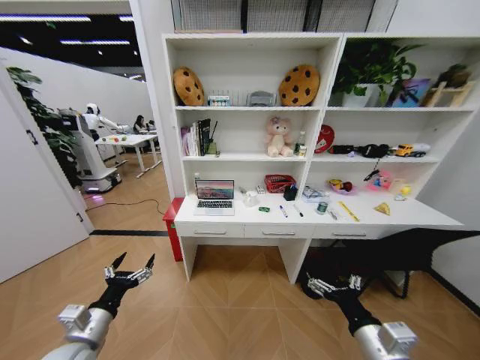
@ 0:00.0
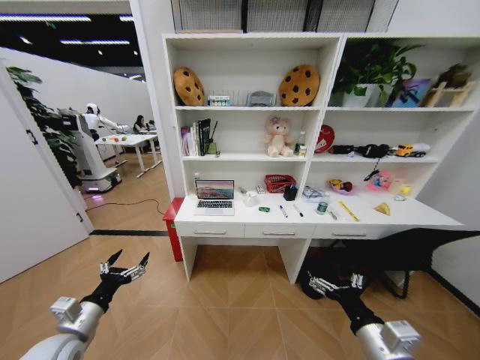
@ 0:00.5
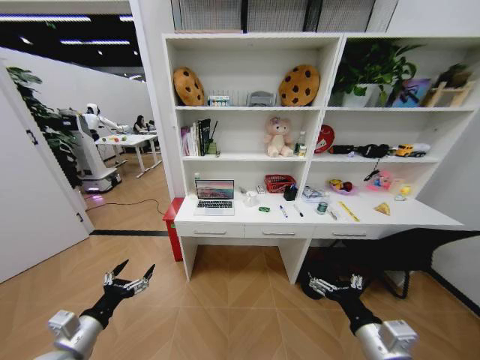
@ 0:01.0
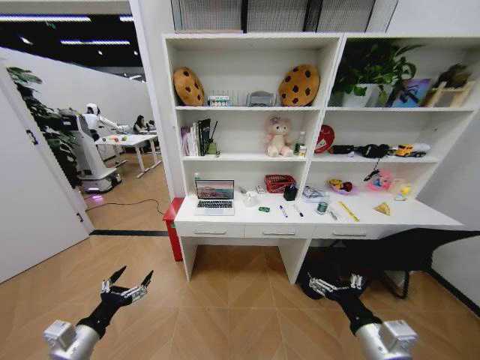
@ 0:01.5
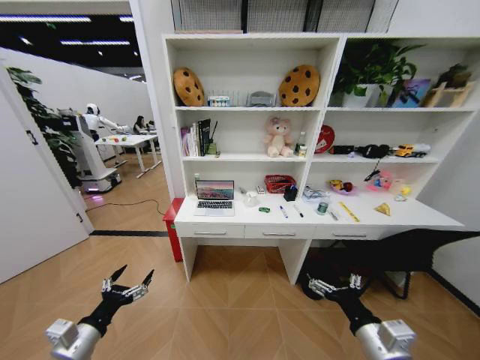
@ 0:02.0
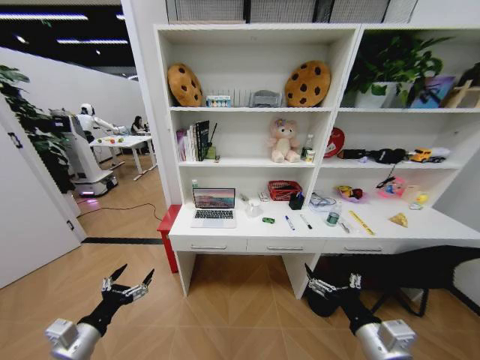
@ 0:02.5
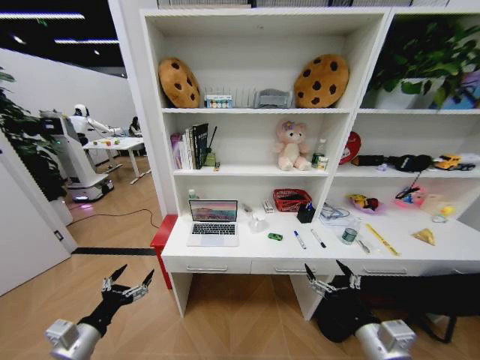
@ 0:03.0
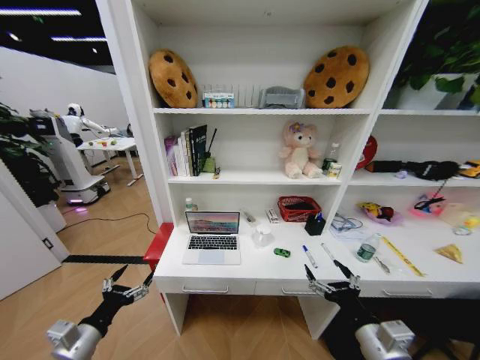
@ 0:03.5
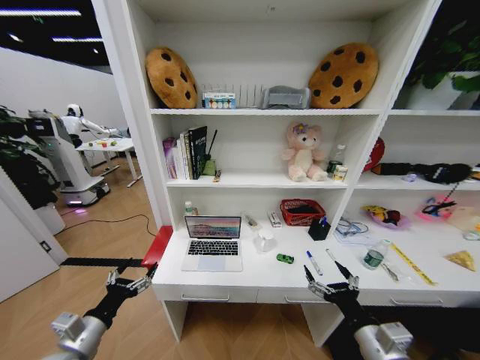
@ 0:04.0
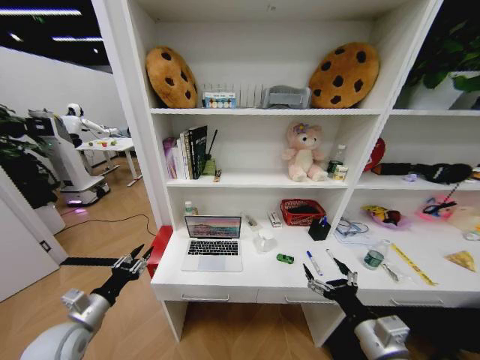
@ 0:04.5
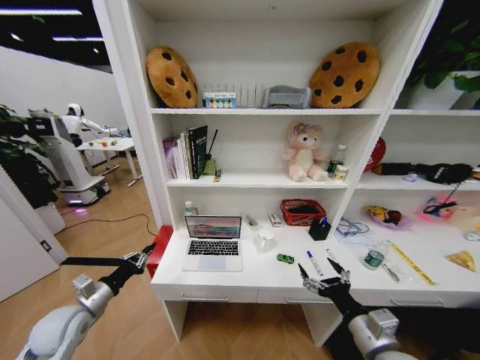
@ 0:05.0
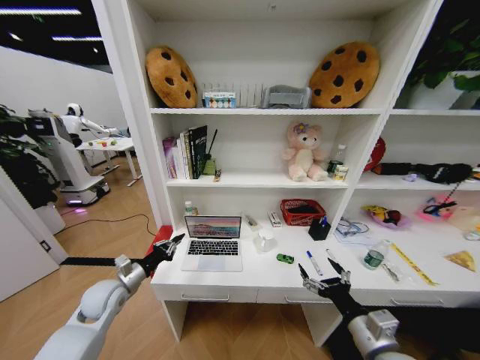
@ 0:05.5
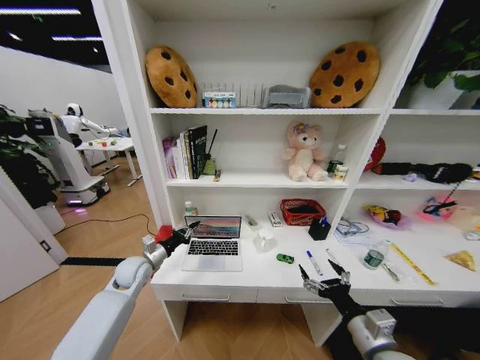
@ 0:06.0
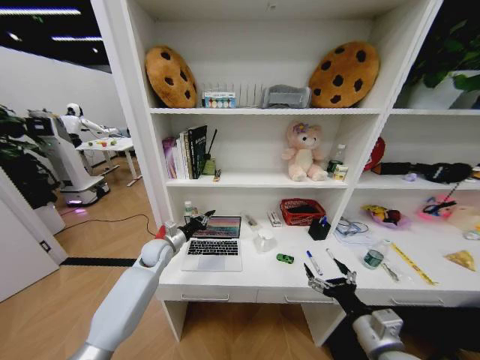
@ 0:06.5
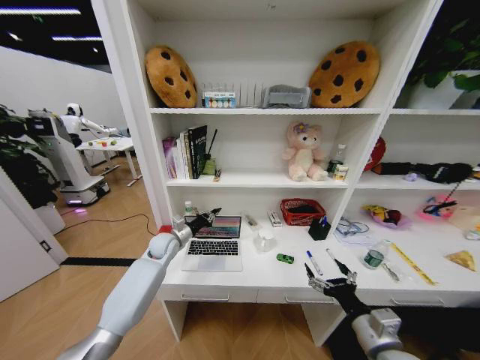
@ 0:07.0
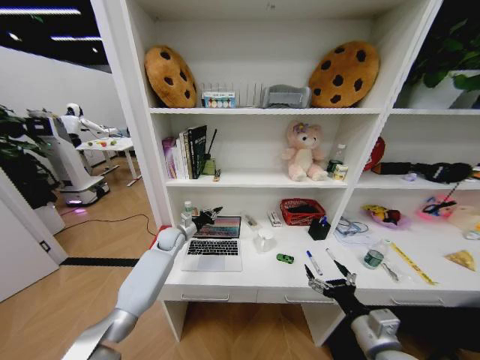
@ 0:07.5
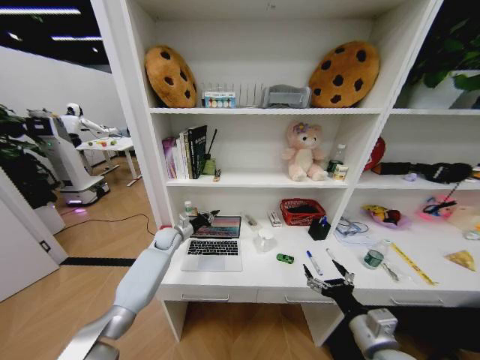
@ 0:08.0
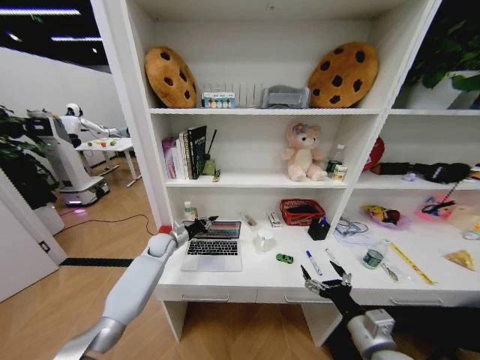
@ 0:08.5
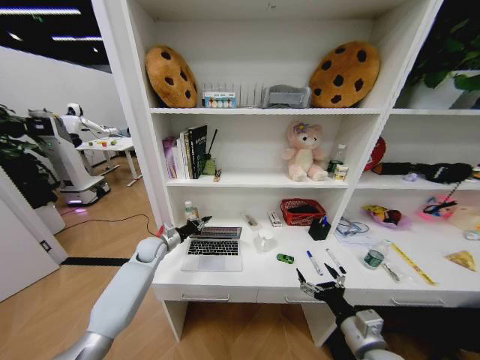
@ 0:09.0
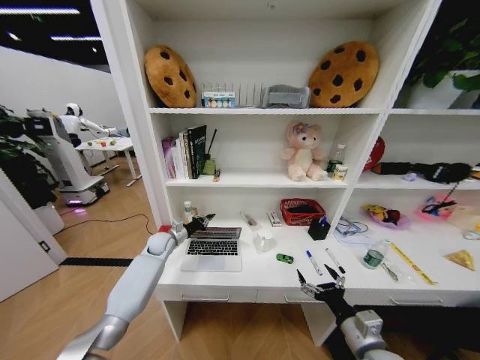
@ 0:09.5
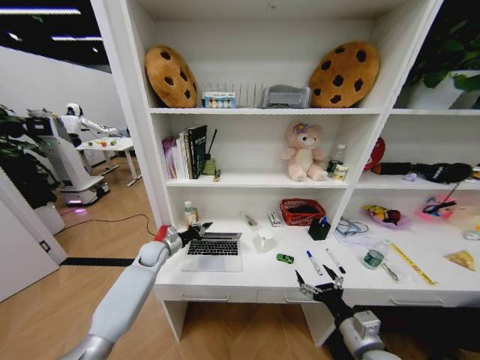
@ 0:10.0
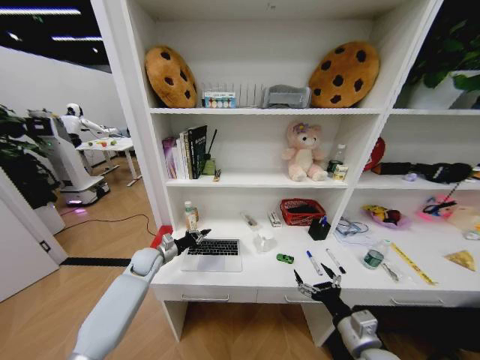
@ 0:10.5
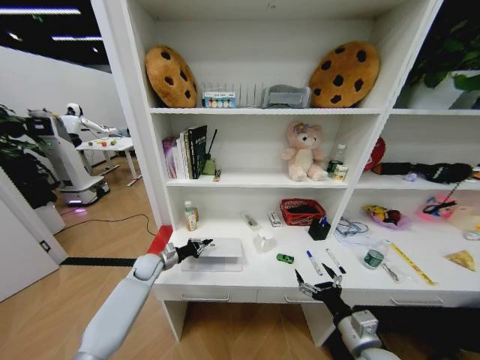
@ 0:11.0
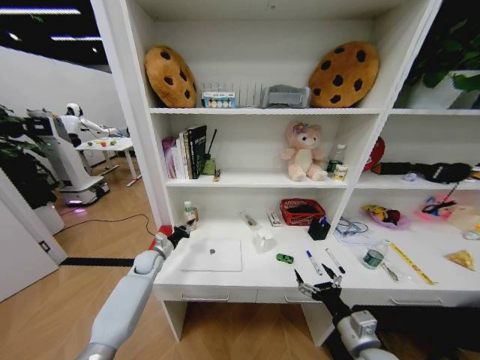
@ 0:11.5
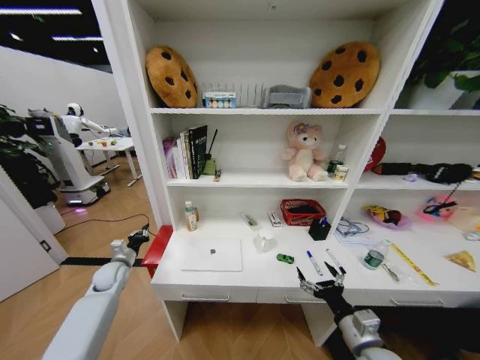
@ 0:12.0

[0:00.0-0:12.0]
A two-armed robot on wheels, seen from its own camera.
Task of the whole recording: Organize the objects on the table.
0:04.0 to 0:06.0: The left gripper travels forward by approximately 25 cm, and closes its fingers.
0:06.0 to 0:08.0: The left gripper moves forward and to the right, roughly 15 cm.
0:08.0 to 0:10.0: The left gripper goes roughly 5 cm backward.
0:10.0 to 0:12.0: The left gripper is displaced to the left and backward by some 15 cm.

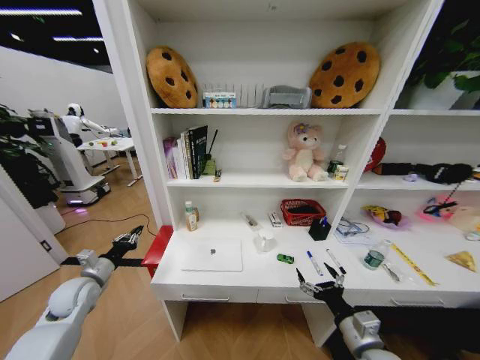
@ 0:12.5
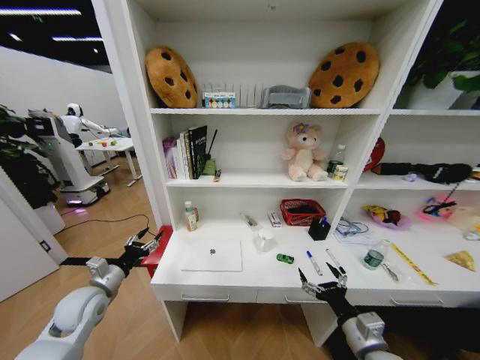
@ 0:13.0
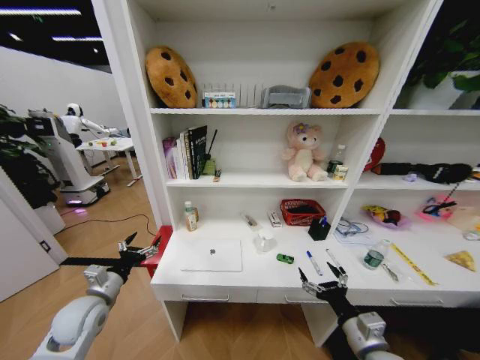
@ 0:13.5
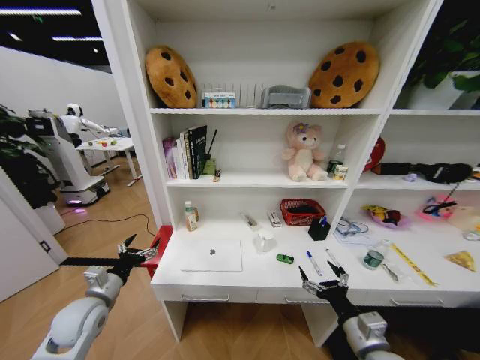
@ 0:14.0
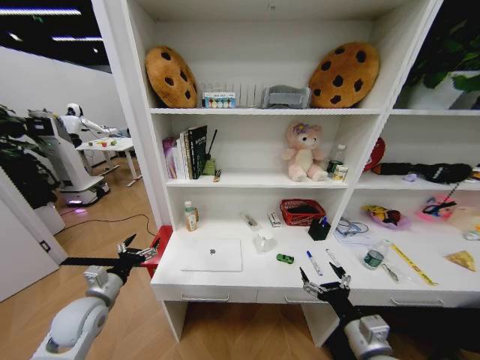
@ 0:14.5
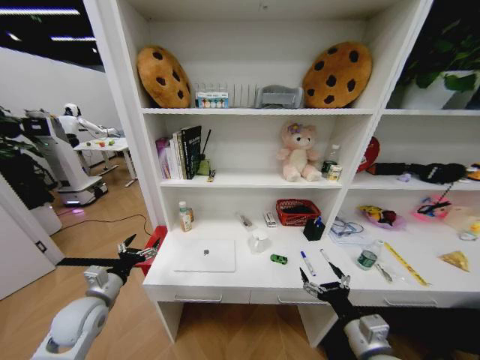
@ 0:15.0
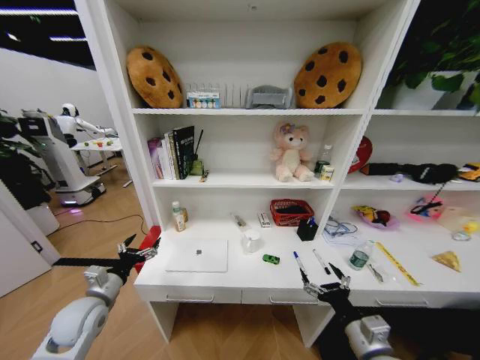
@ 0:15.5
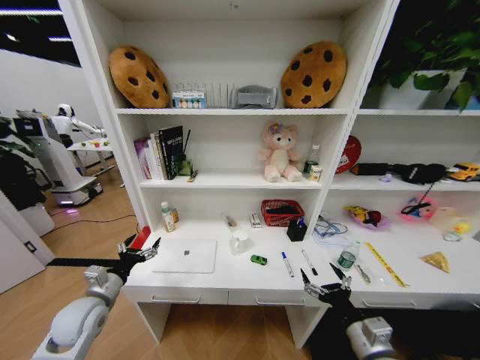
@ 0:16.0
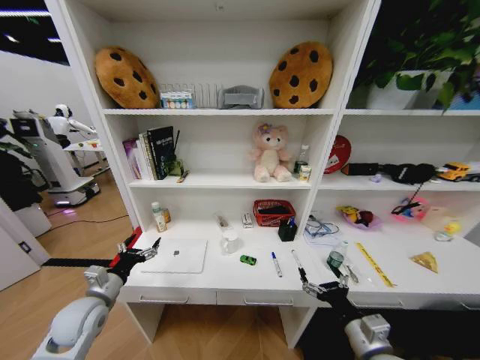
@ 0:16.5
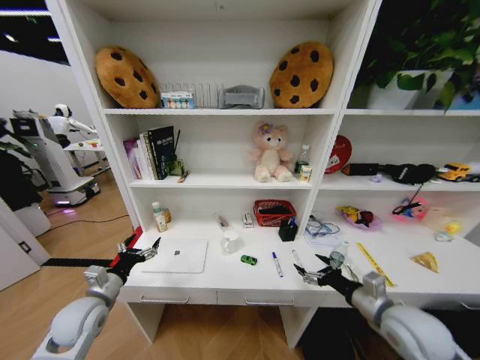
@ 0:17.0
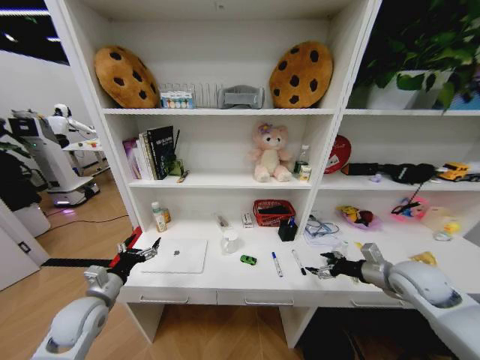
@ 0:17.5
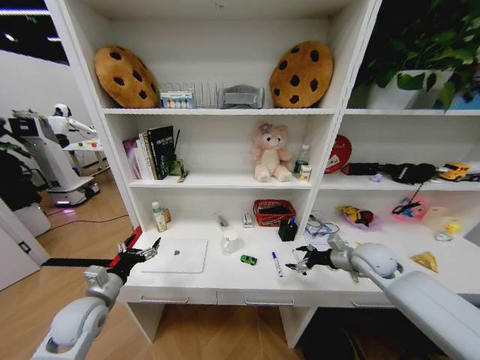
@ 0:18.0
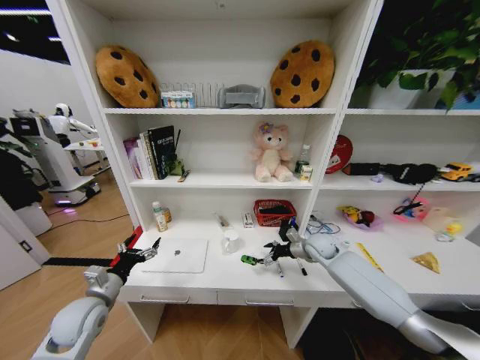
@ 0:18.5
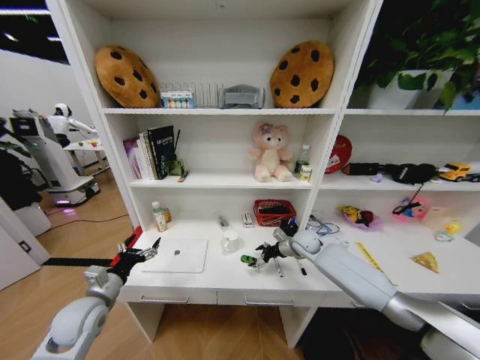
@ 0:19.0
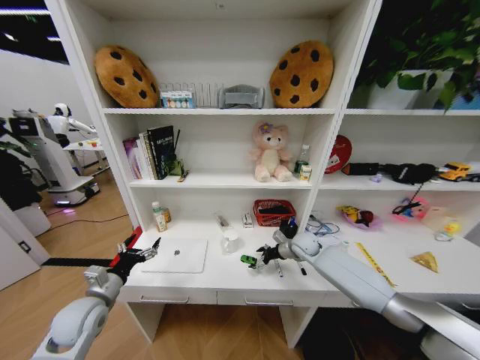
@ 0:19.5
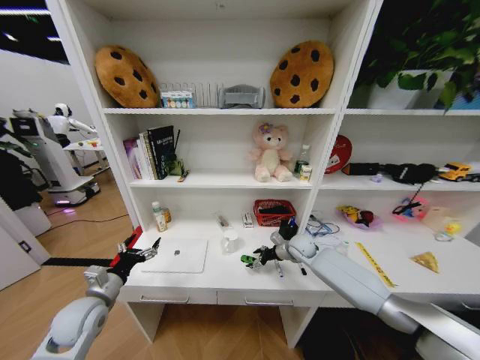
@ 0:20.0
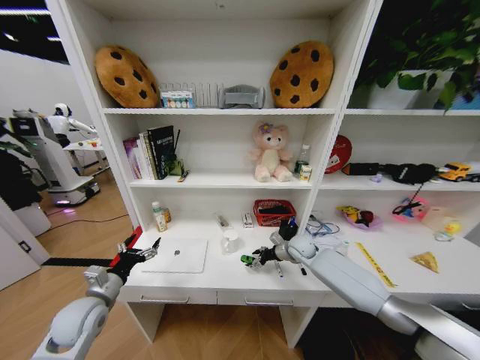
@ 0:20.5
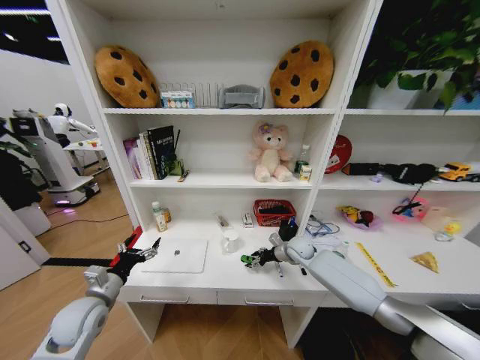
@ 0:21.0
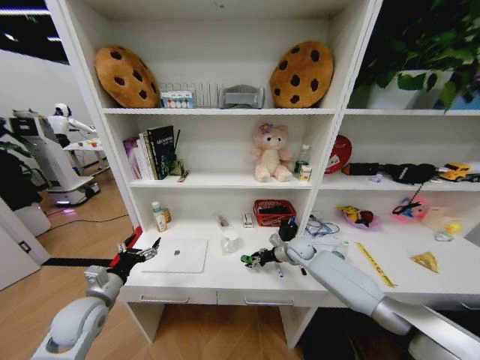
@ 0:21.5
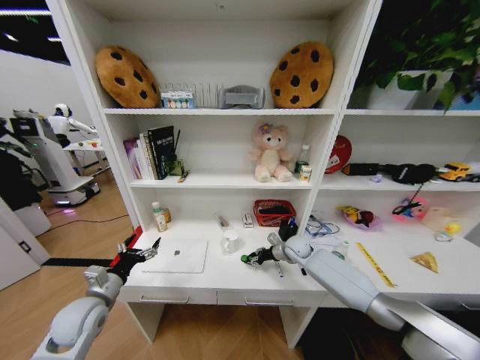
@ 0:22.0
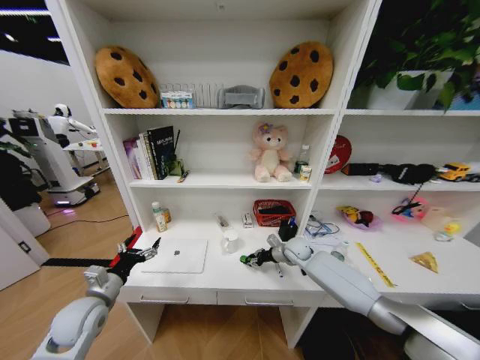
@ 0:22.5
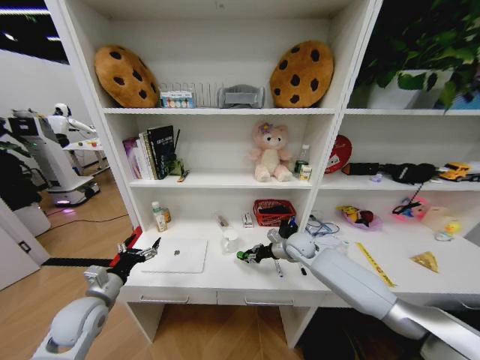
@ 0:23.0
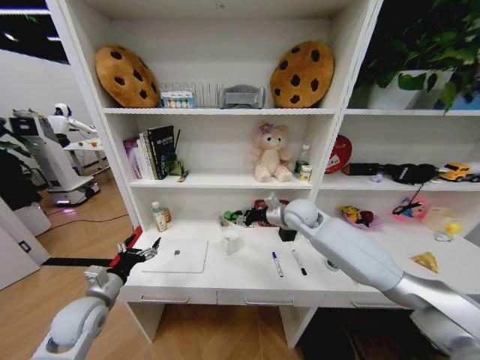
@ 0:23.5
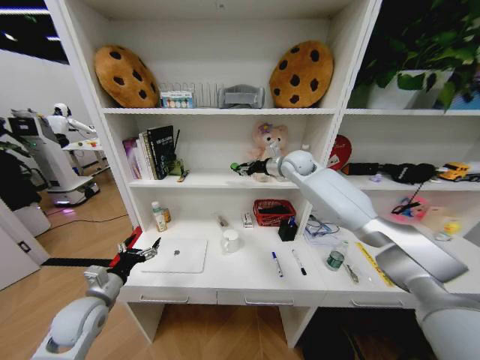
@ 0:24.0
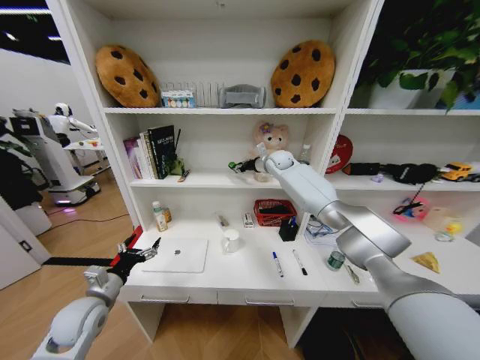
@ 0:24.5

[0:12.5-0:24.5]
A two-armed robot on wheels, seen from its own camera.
Task of the whole recording: Organize the objects on the table.
0:12.5 to 0:14.5: The left gripper heads to the right and backward, covering roughly 10 cm, and opens.
0:16.5 to 0:18.5: The right gripper travels forward by some 35 cm.
0:18.5 to 0:20.5: The right gripper shifts by some 5 cm.
0:20.5 to 0:22.5: The right gripper closes.
0:22.5 to 0:24.5: The right gripper shifts roughly 35 cm upward and forward.

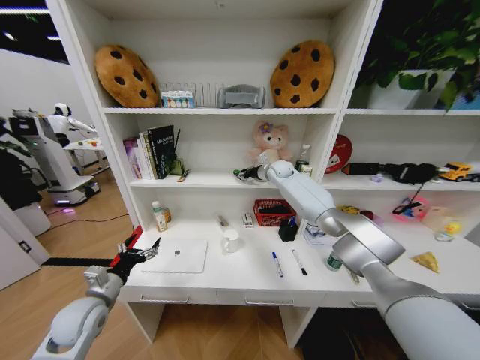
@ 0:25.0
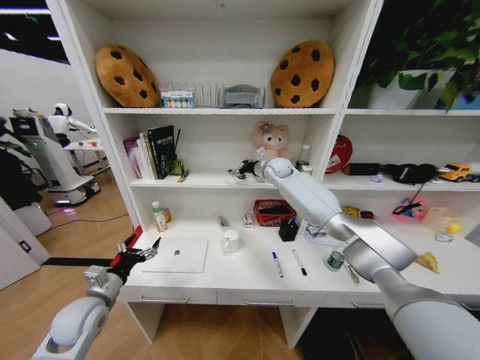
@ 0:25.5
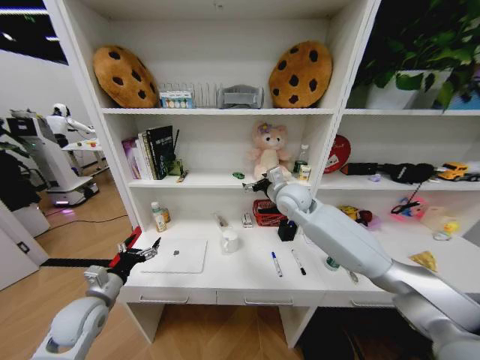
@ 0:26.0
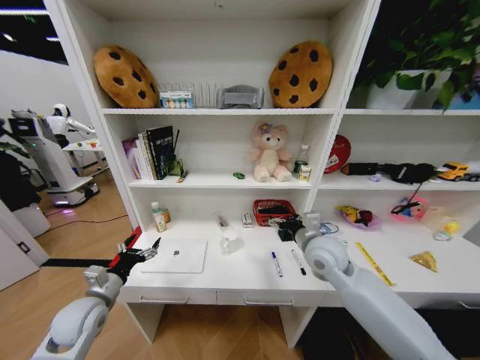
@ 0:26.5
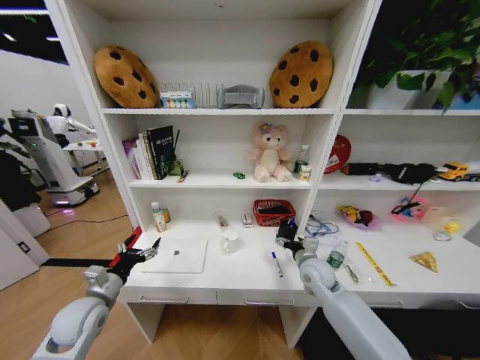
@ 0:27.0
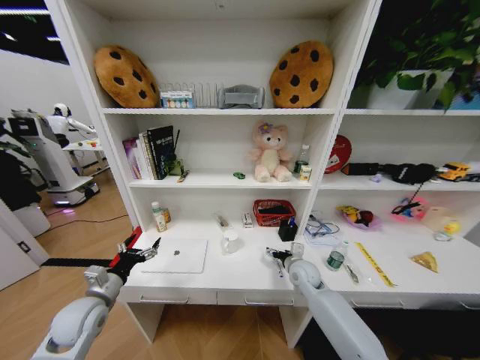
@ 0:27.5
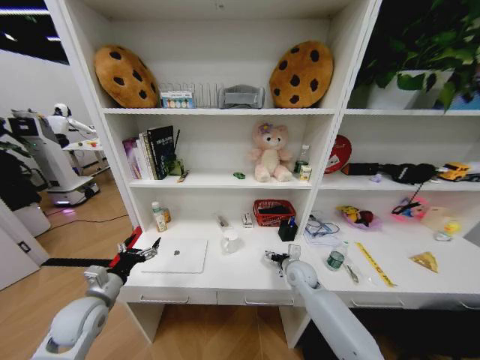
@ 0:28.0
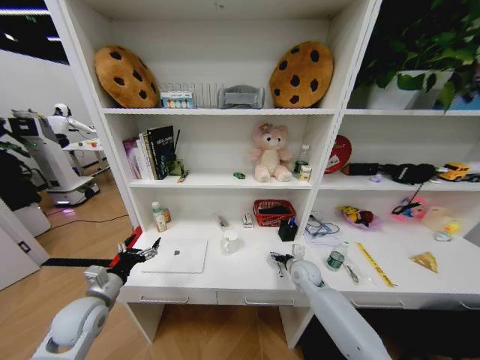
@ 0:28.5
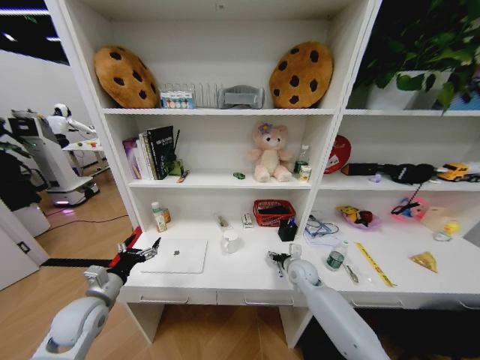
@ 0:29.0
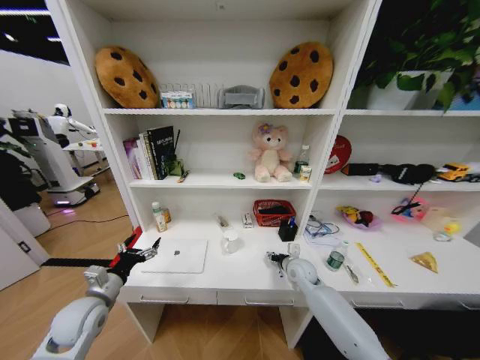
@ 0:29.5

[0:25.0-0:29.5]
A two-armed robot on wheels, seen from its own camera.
Task of the whole recording: Organize the objects on the table.
0:25.0 to 0:27.0: The right gripper goes about 35 cm backward and downward, and opens.
0:27.0 to 0:29.5: The right gripper travels downward by some 5 cm.
